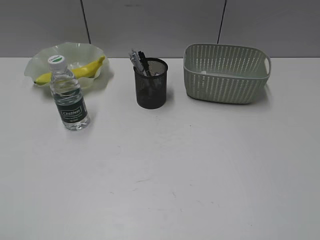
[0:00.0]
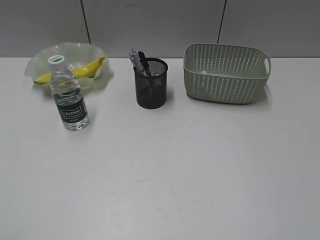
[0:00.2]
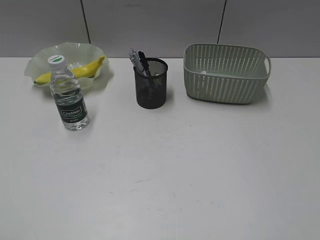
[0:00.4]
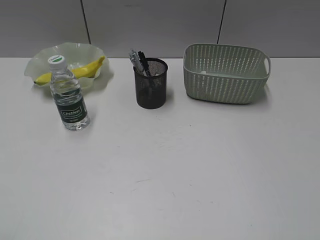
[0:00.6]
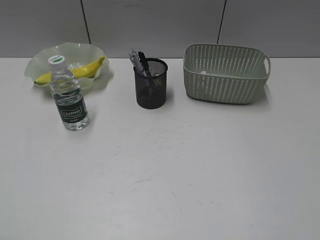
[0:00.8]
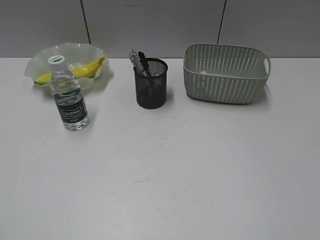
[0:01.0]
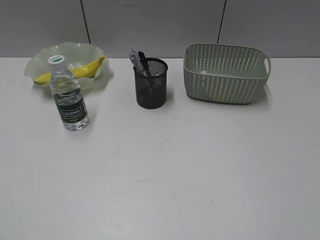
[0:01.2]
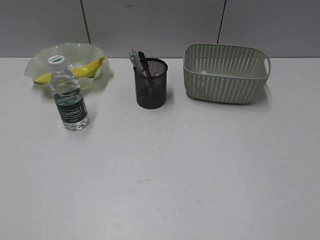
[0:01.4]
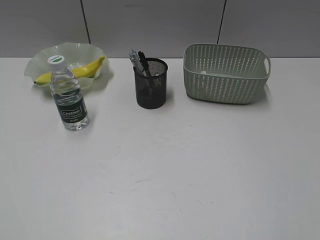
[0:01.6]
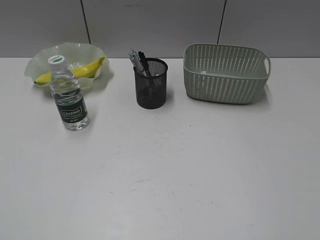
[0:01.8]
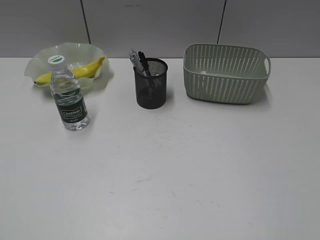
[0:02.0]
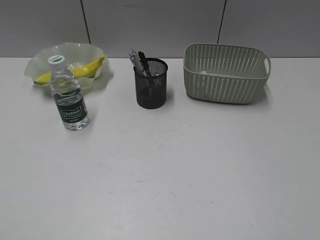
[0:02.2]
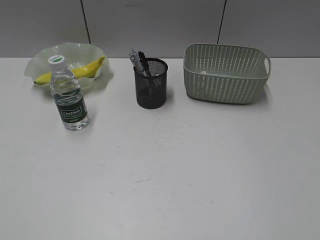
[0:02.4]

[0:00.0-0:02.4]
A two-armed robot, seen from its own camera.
0:01.2 to 0:02.4: Both grippers stay about where they are.
